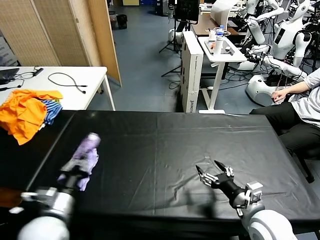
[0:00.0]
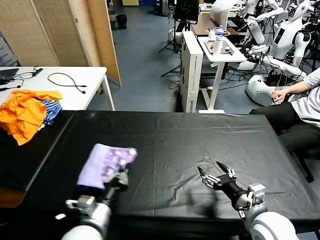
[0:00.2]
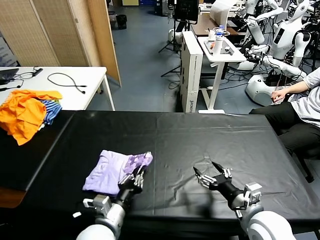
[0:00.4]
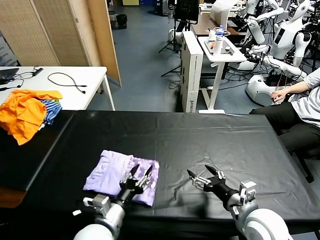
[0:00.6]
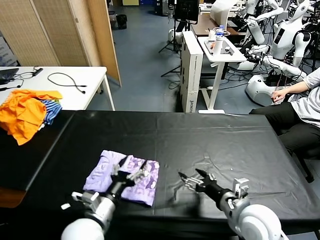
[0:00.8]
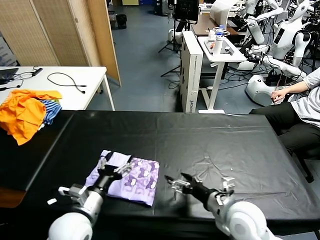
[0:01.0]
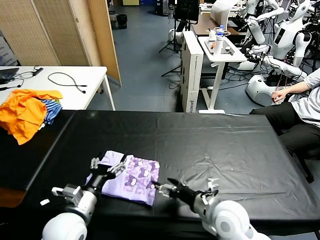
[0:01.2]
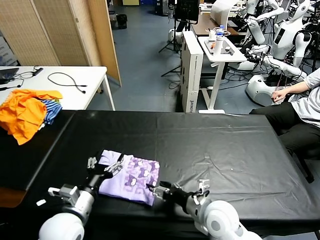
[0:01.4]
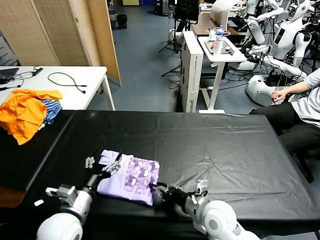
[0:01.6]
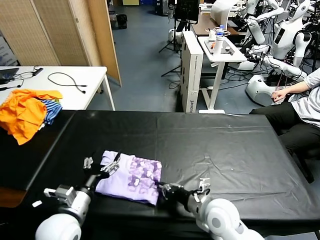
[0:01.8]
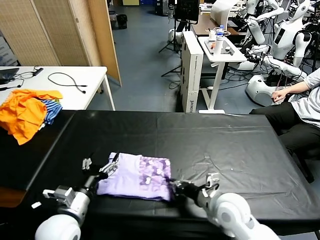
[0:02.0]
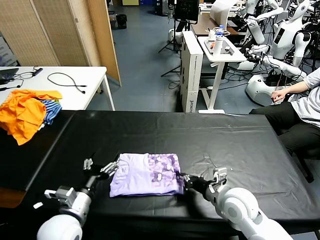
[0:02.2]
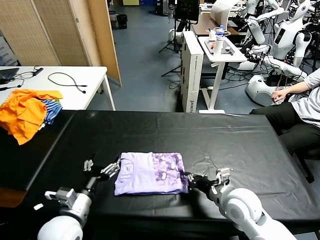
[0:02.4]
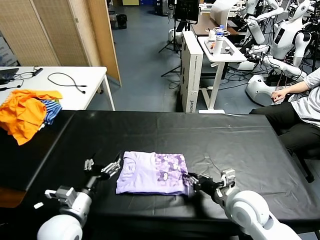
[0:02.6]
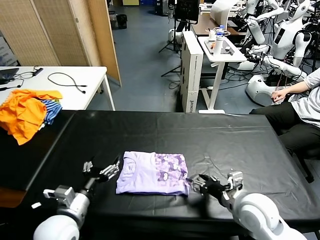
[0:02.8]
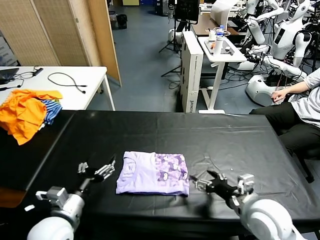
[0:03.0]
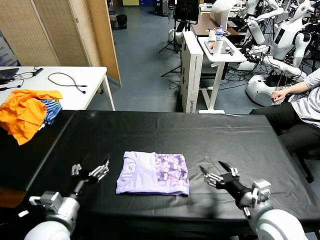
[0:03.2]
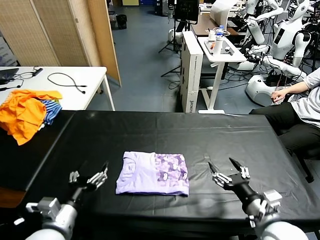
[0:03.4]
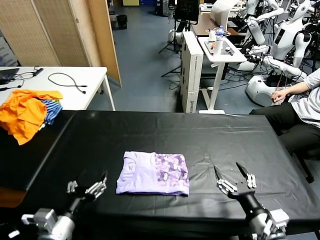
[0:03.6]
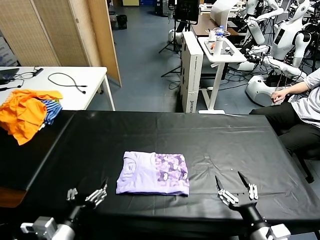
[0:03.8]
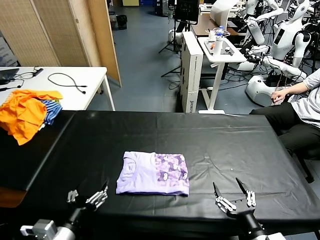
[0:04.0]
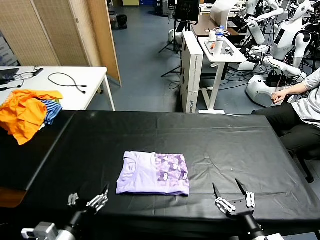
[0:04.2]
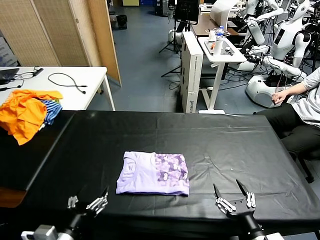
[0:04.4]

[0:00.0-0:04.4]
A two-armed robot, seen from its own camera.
Task of the whole recording: fold and organize the clothes.
Step, 0:01.0 to 0:02.8: Drag the clothes to the center of the table.
0:00.0 to 0:01.4: The right gripper moves to the left, some 10 cm, while the left gripper moves to the right, approximately 15 cm, and opens its fingers.
0:01.4 to 0:03.0: The right gripper goes roughly 10 cm to the right, and closes and opens again.
0:03.0 to 0:04.4: The left gripper travels backward by roughly 10 cm. The right gripper heads backward, covering about 15 cm.

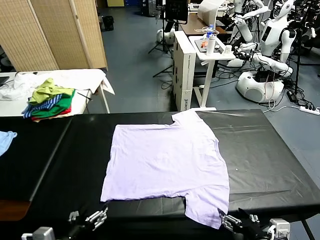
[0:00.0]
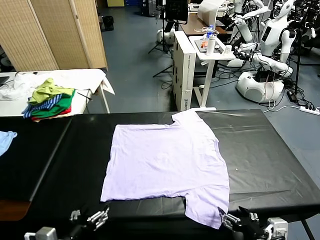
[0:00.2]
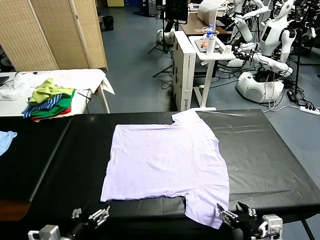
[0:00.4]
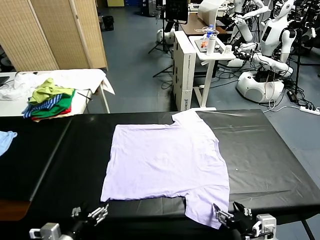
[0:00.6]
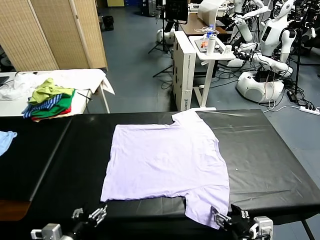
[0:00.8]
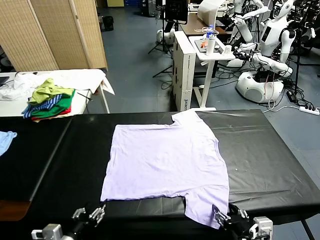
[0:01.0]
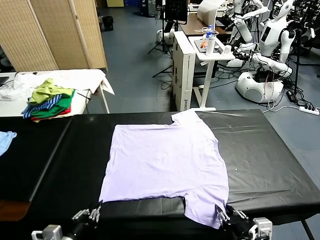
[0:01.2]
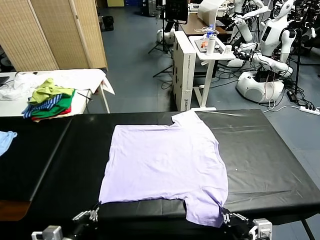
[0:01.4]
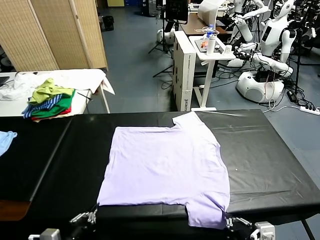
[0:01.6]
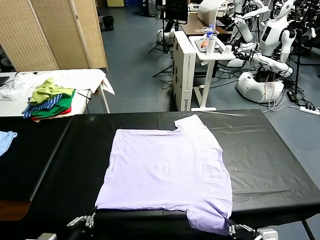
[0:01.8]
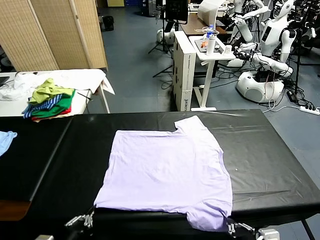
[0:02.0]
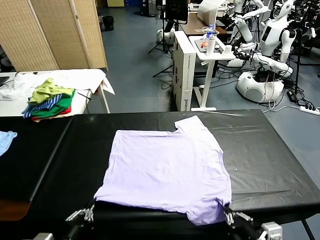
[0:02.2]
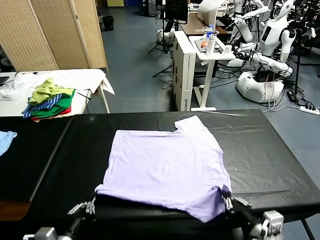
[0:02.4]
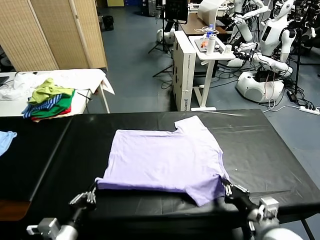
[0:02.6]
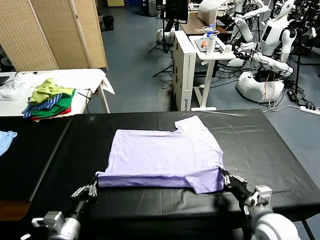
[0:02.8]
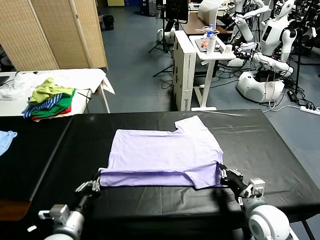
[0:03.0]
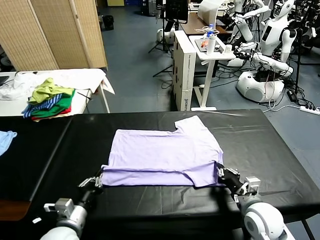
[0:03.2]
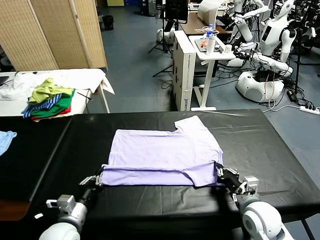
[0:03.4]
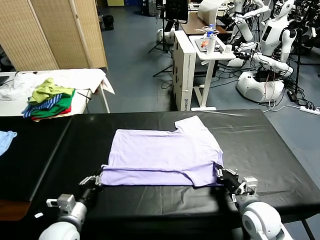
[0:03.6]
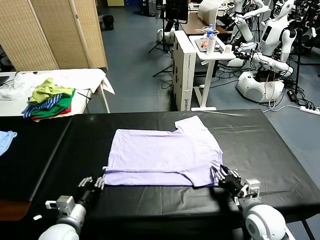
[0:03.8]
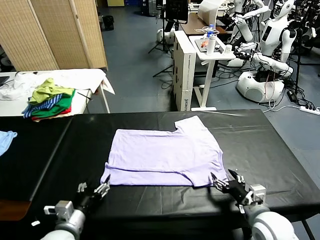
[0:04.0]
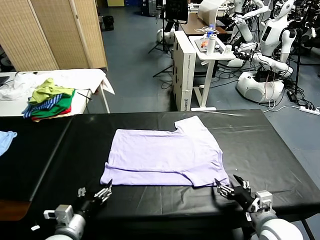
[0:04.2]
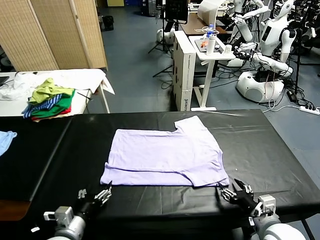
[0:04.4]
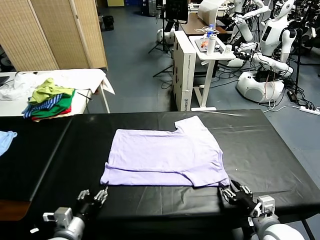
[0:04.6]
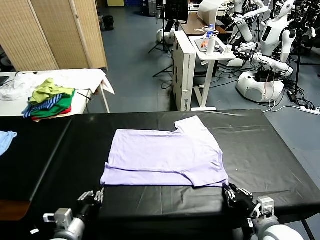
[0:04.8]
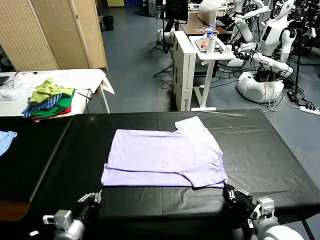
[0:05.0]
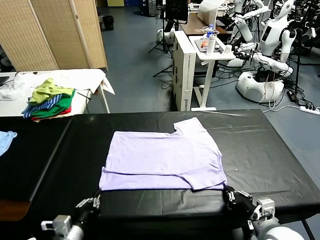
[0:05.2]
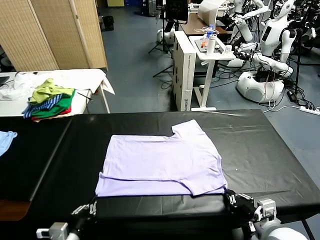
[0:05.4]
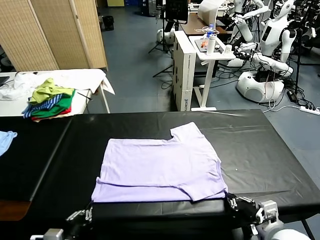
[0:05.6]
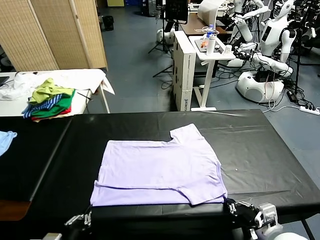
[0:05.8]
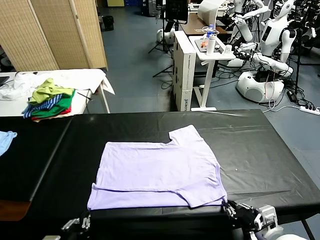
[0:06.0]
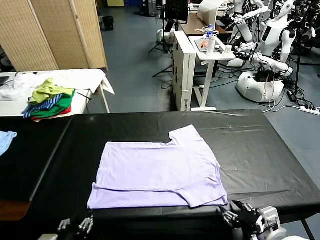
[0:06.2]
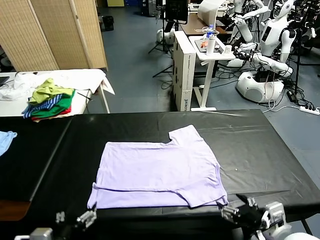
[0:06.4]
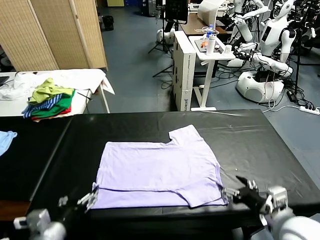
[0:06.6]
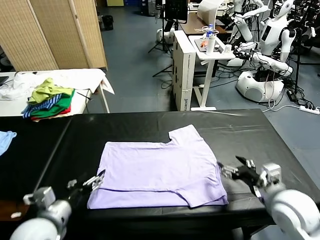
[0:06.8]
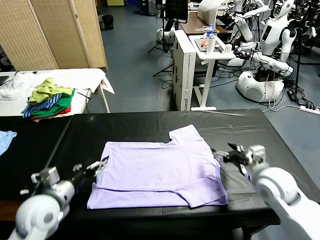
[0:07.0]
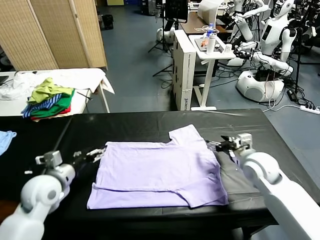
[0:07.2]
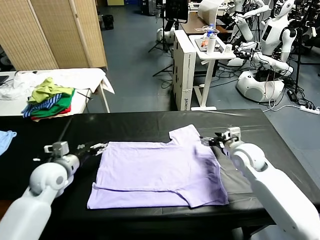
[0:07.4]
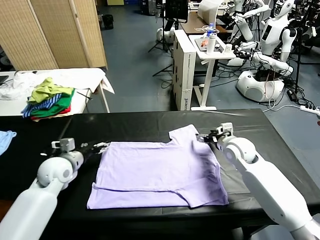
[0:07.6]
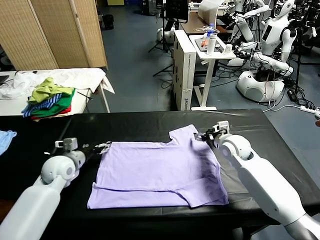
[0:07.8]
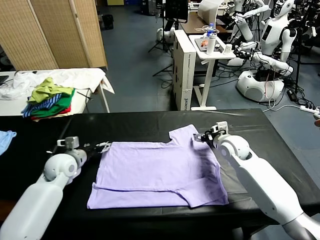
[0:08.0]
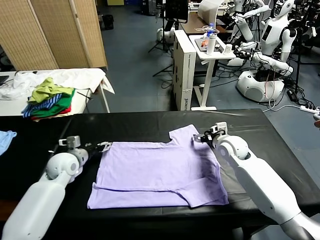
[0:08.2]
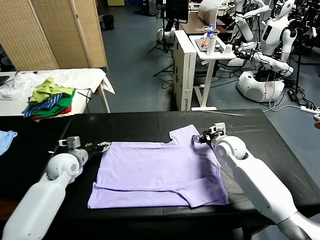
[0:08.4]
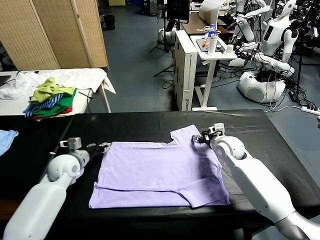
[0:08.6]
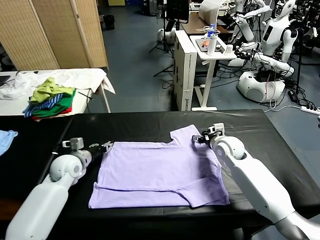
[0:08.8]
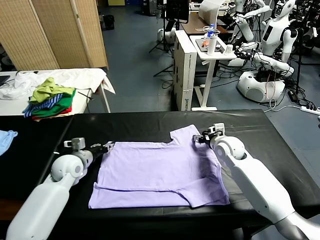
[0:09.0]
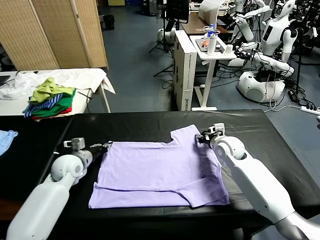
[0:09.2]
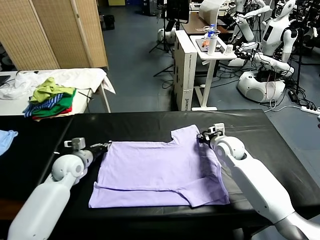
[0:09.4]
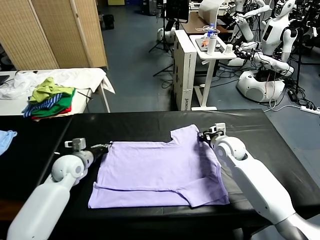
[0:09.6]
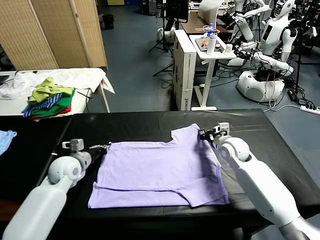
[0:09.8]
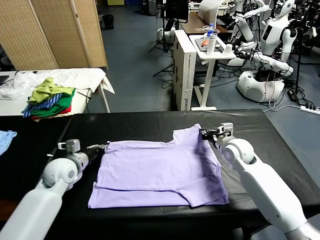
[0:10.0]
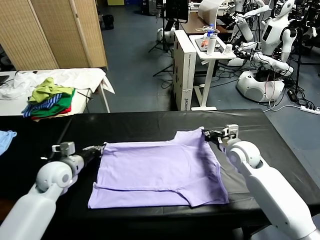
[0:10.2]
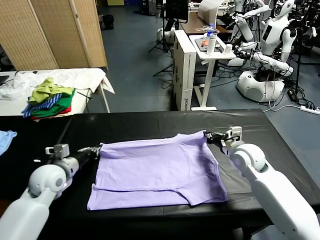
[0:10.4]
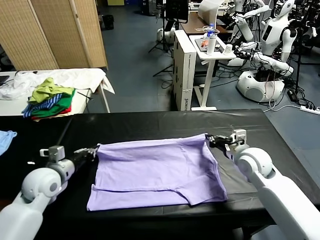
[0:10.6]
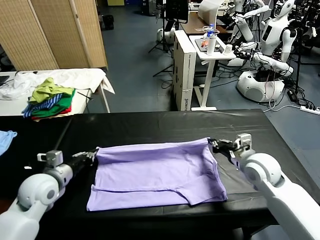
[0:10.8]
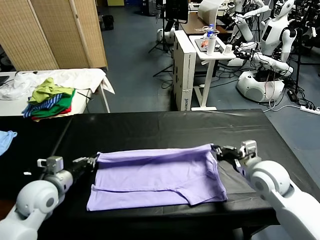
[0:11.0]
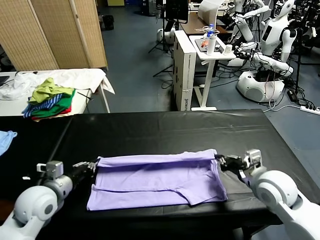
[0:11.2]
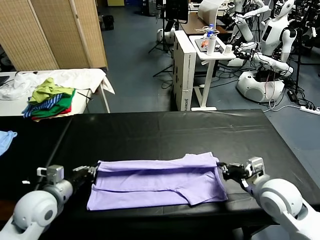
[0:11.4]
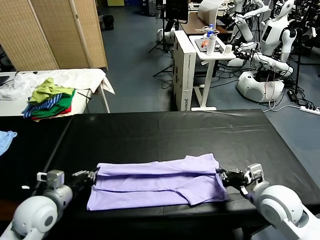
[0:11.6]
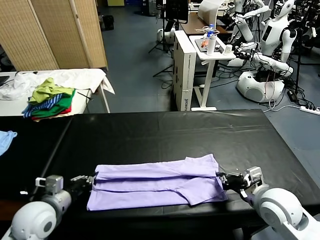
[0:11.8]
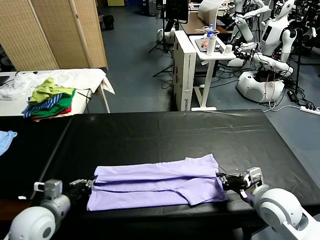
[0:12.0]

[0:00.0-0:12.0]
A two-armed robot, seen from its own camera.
Task of the whole recording: fold and organize the clothes.
Step, 0:00.0 to 0:01.4: use both grippers simultaneously to clamp the lower edge of the clothing fabric.
Step, 0:01.6 to 0:03.8: use both grippers to drag the lower edge of the fabric forward and fold it over the upper edge.
Step, 0:04.0 to 0:06.2: Drag the clothes downward with both gripper.
Step, 0:06.4 to 0:09.6: use both grippers simultaneously to clamp the upper edge of the clothing fabric.
0:01.6 to 0:03.0: The left gripper moves forward, roughly 10 cm. Meanwhile the right gripper shifts roughly 15 cm forward.
0:03.0 to 0:04.4: The left gripper opens. The right gripper is displaced backward by roughly 5 cm, and opens up.
0:04.4 to 0:06.0: The left gripper moves backward, approximately 10 cm, and closes. Meanwhile the right gripper goes approximately 5 cm upward, and closes and opens again.
0:06.0 to 0:07.6: Both grippers move forward, about 30 cm. The left gripper opens; the right gripper opens its fingers.
0:07.6 to 0:09.0: The right gripper closes. The left gripper closes.
0:09.0 to 0:10.4: Both grippers travel together backward, approximately 10 cm. The left gripper closes up. Meanwhile the right gripper closes.
0:10.4 to 0:12.0: The two grippers go approximately 15 cm backward.

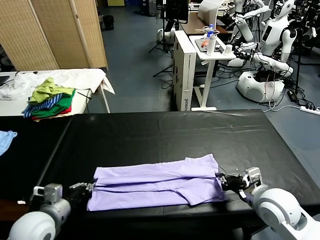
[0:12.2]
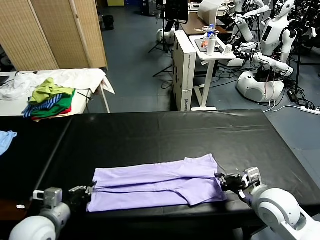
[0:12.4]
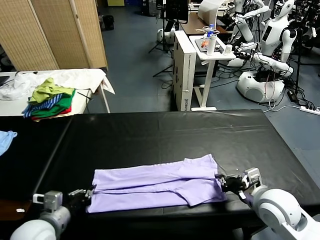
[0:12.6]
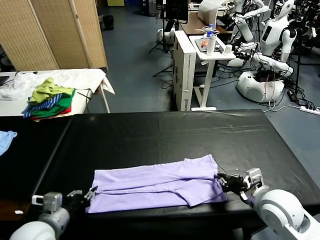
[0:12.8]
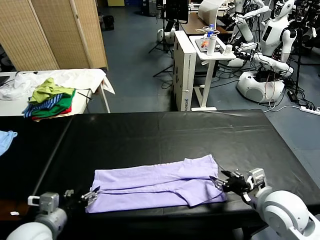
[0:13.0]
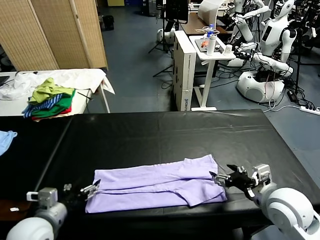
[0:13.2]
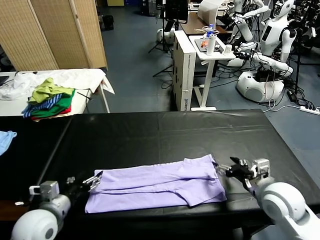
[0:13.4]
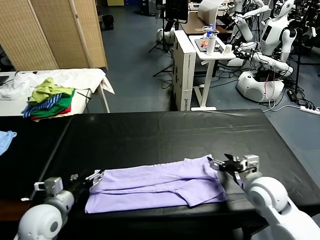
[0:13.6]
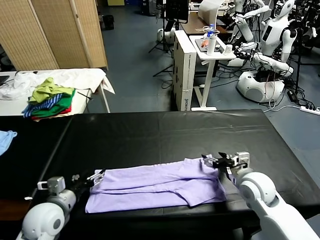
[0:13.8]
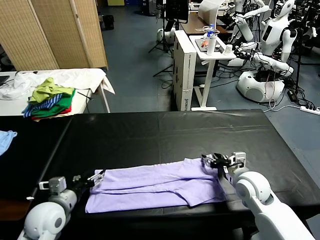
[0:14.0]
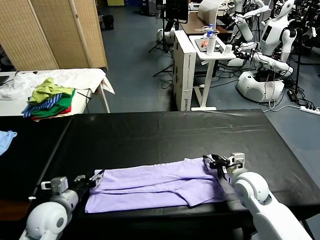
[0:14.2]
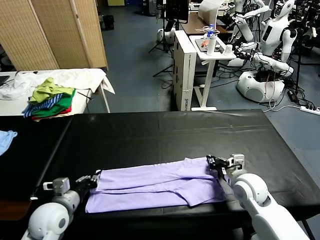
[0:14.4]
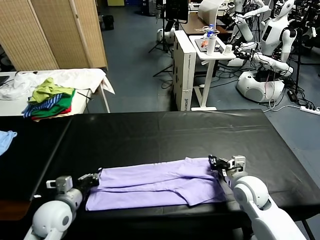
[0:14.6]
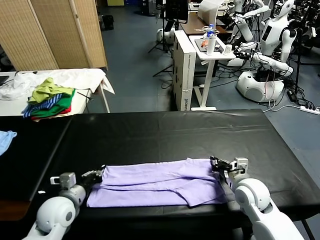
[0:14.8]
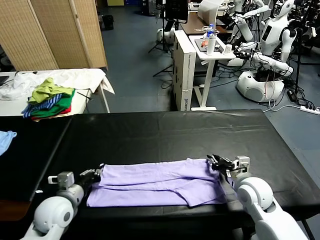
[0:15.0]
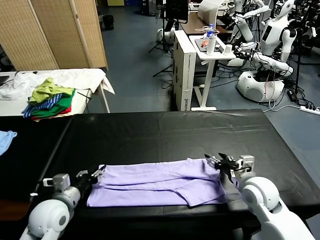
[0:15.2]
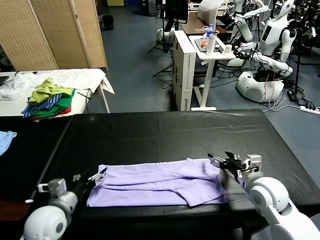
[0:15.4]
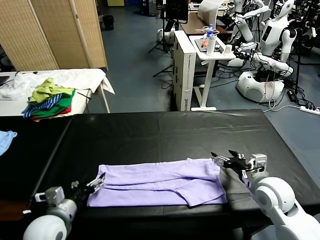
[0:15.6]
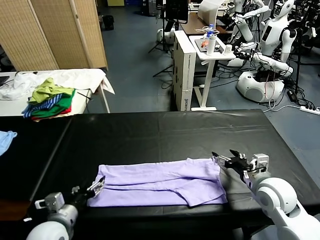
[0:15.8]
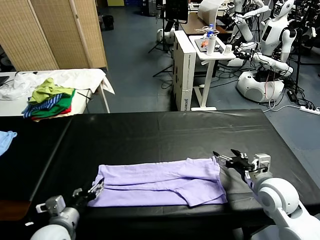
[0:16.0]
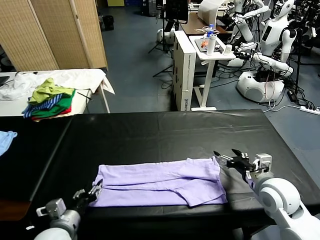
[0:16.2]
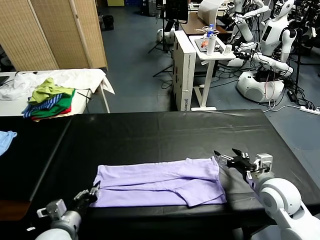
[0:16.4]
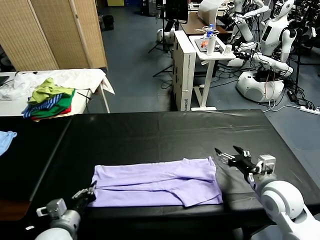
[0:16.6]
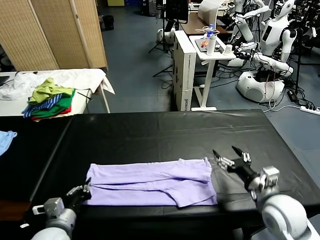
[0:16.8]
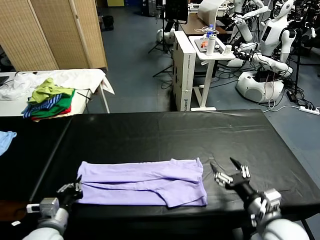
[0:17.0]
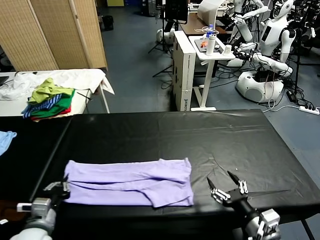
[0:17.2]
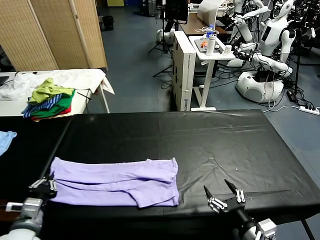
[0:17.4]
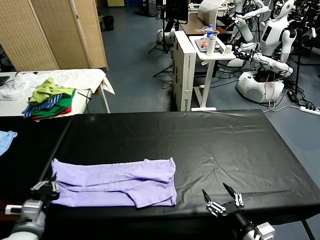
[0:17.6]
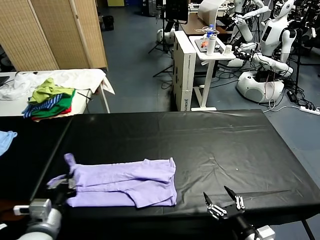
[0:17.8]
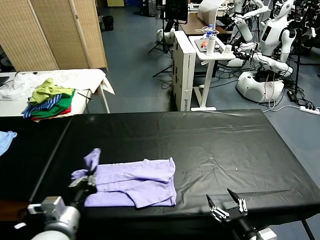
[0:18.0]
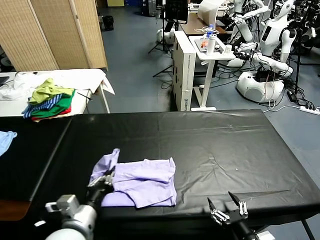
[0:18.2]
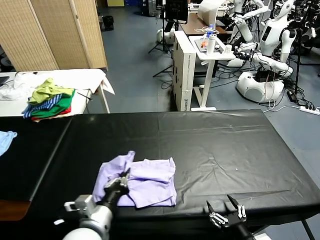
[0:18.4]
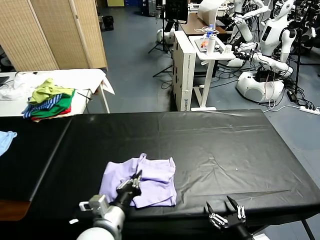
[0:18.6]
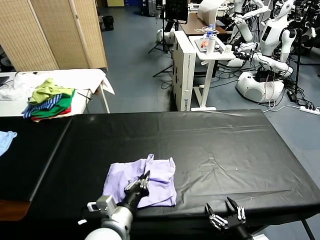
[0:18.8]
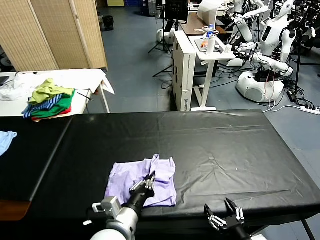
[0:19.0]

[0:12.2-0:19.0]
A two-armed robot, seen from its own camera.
Task of the whole recording: fold and organize the clothes.
Step, 0:13.2 to 0:16.6: use the left gripper to clamp the left edge of the fabric.
0:12.2 to 0:13.6: The right gripper is displaced forward by roughly 5 cm, and opens its fingers. The left gripper opens its fingers.
0:13.6 to 0:15.0: The left gripper closes; the right gripper closes its fingers.
0:15.0 to 0:16.2: The left gripper goes roughly 10 cm backward, and opens its fingers. The right gripper moves some 5 cm, and opens.
0:16.2 to 0:17.6: The right gripper is displaced backward by some 15 cm; the left gripper ends up approximately 5 cm from where it was, and closes its fingers.
0:17.6 to 0:19.0: The left gripper is displaced to the right by roughly 20 cm.
